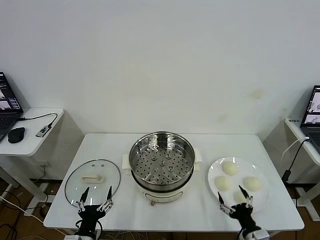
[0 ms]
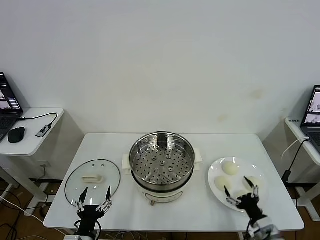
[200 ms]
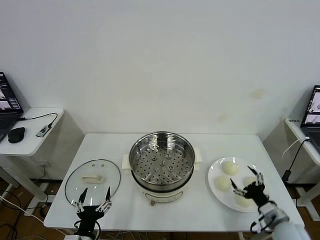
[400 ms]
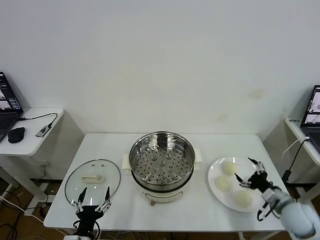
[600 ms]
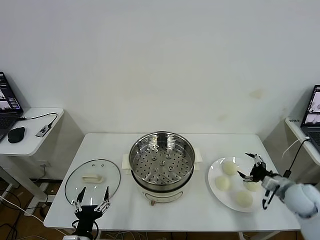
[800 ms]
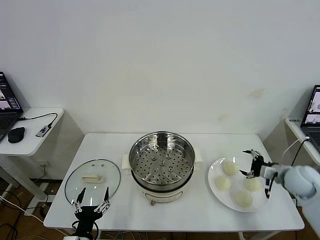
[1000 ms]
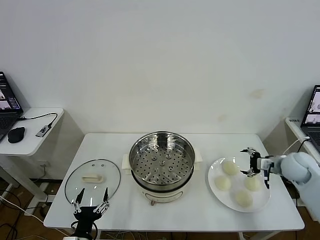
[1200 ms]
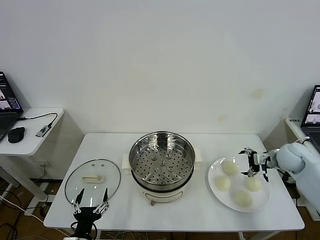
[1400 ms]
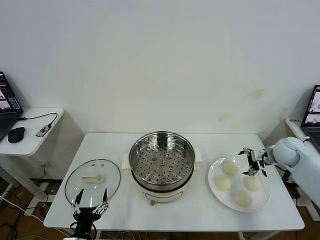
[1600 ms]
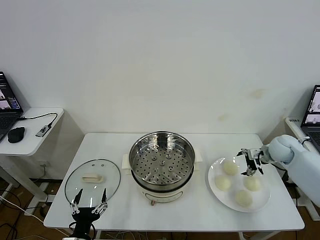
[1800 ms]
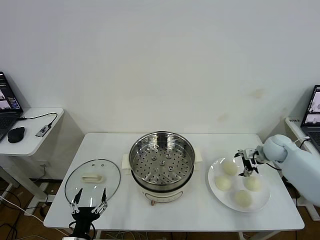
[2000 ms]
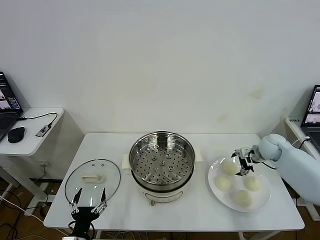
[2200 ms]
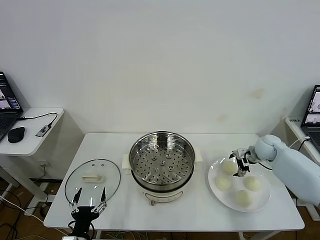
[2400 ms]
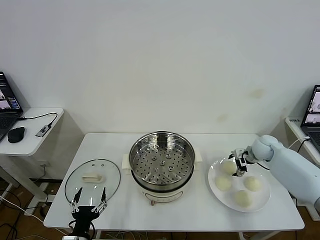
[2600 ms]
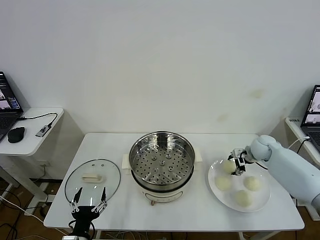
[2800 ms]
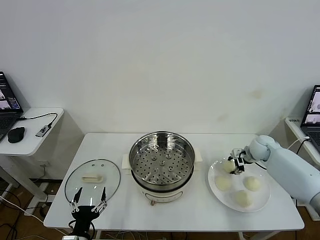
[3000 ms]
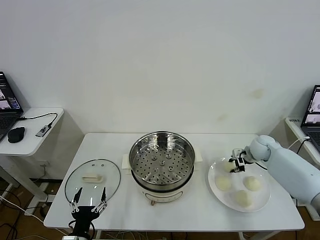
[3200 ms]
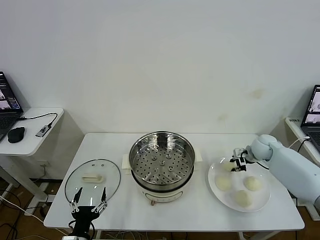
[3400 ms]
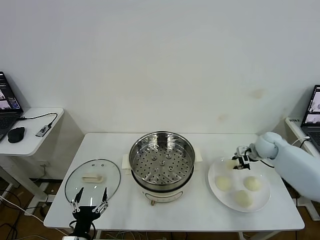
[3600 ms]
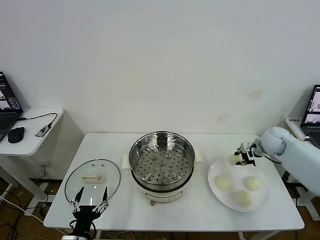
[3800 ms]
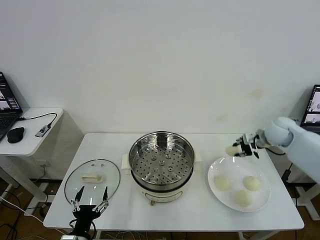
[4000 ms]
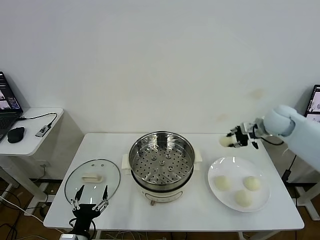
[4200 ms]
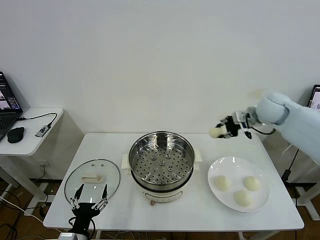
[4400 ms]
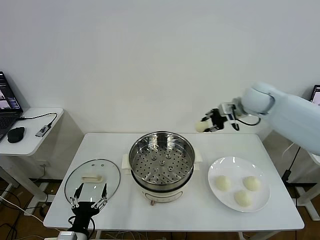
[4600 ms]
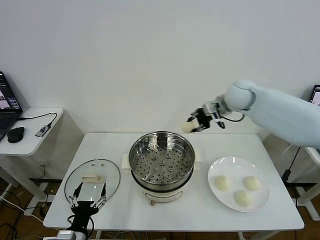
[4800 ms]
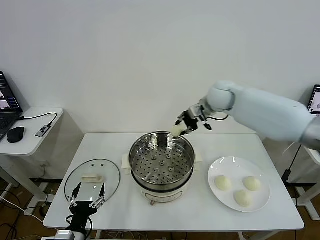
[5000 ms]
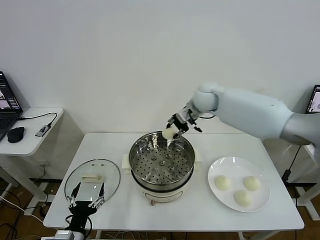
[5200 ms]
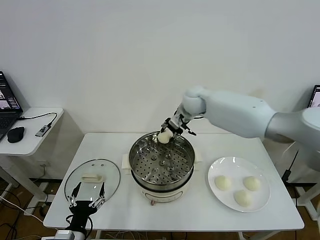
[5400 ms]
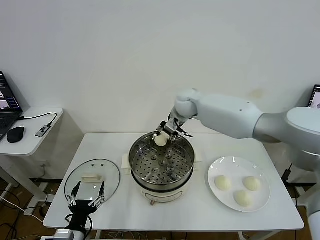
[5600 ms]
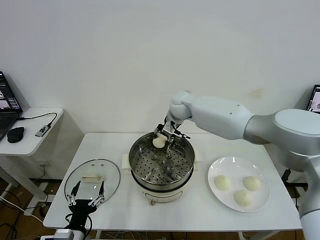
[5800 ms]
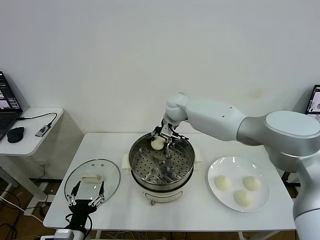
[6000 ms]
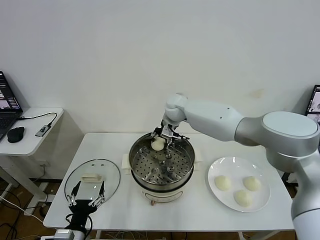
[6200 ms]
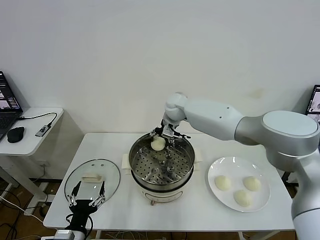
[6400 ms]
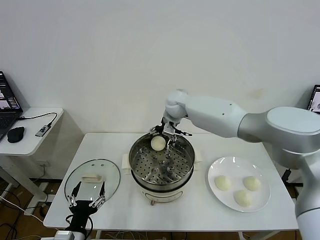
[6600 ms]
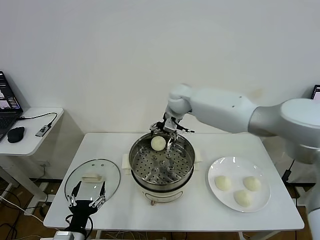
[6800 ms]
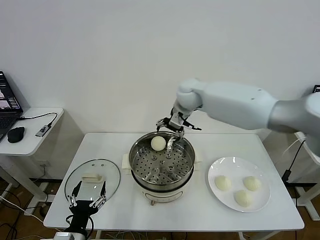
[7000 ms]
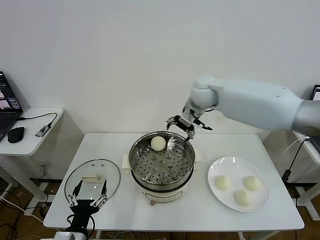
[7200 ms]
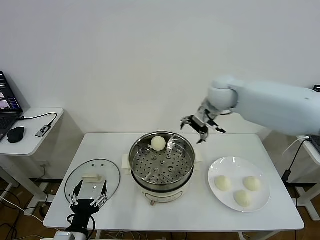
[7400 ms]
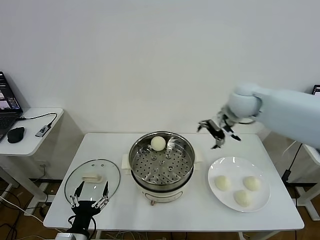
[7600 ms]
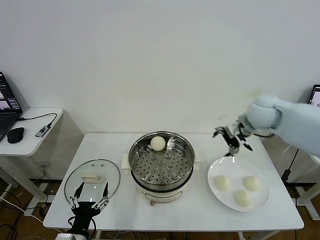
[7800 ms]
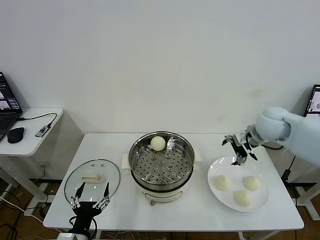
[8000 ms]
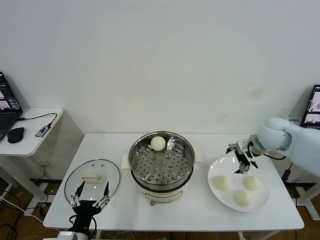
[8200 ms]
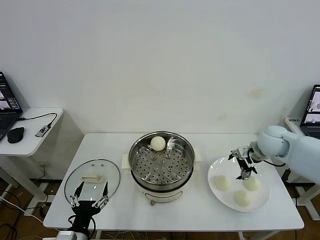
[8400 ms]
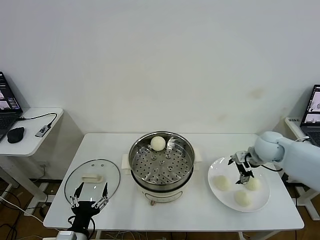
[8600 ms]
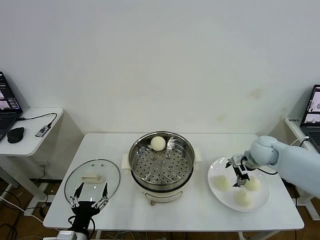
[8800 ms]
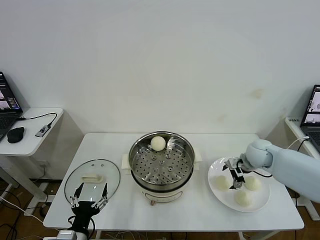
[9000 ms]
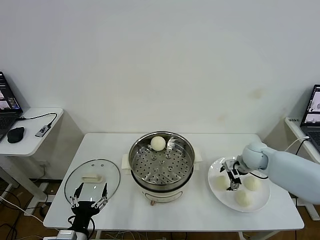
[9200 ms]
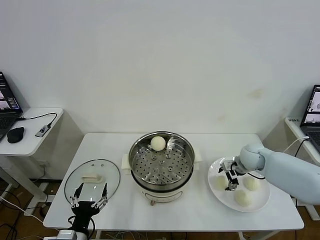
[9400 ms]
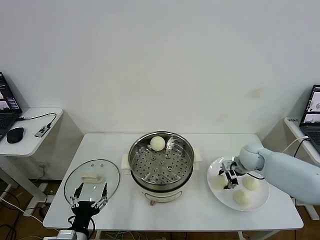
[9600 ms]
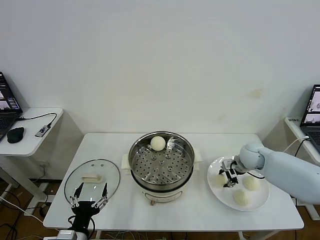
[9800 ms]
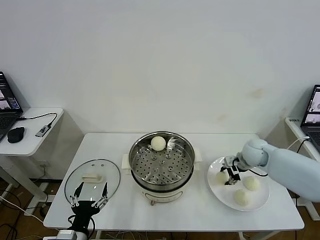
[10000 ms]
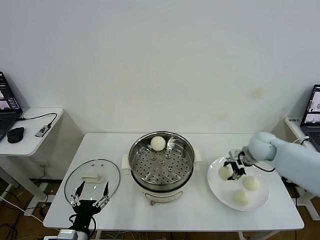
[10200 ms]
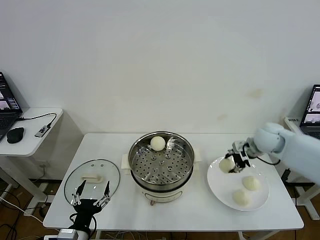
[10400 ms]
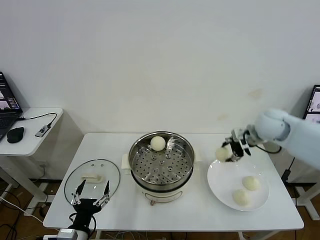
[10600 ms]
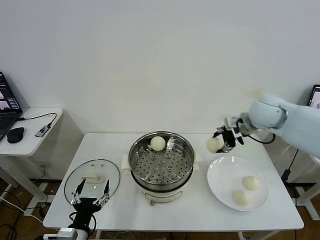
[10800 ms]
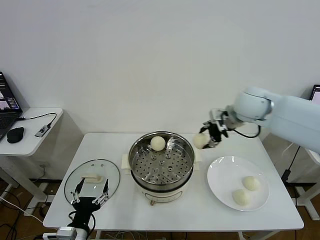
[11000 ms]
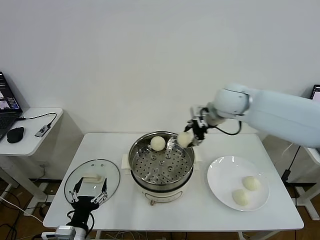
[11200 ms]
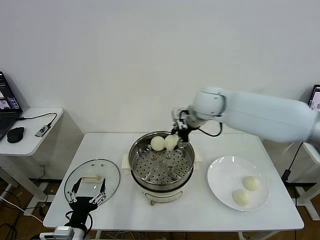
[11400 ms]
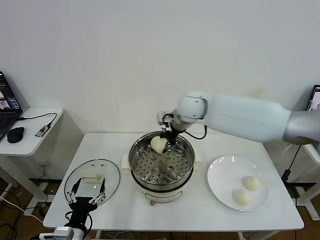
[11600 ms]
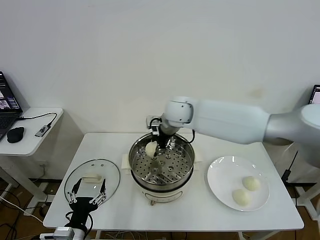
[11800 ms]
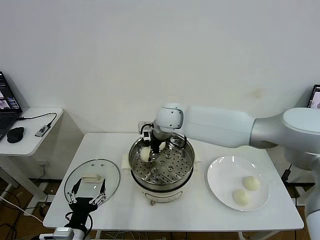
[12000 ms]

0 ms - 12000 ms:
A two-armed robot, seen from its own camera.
Task of the whole recording: take steamed baozi put them in steamer then cover it.
Step, 0 ms - 3000 ms: Grasp the baozi in the plate with right gripper.
Step, 3200 ms - 6600 ms: Place the baozi on the steamer with right gripper.
Step, 6800 ms - 9800 ms: Grasp the baozi in the plate with right gripper.
1600 ms - 3000 ms: The right gripper ends up approximately 10 cm from where it was, and closes.
3000 ms - 4400 ms: The right gripper travels upward by about 20 cm.
4400 ms - 6000 ms: The right gripper is displaced to the left by approximately 25 cm, and opens its fingers.
6000 ms - 7600 ms: The right gripper is displaced to the right and backward by some 25 cm, and opens its fingers.
7600 ms - 9000 ms: The right gripper is displaced downward by roughly 20 cm.
9000 ms - 10400 ms: The right gripper heads upward, covering some 10 cm, and closes.
10400 ms - 12000 ms: The right gripper heads to the left, covering approximately 35 cm.

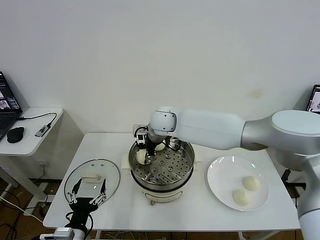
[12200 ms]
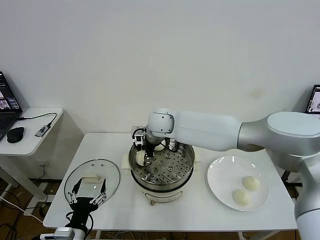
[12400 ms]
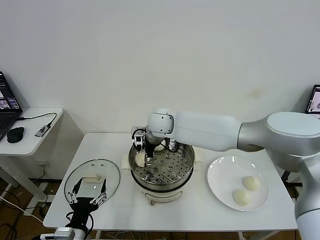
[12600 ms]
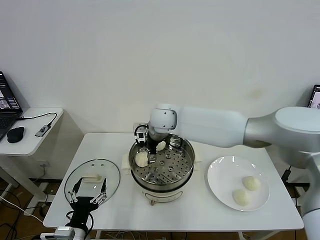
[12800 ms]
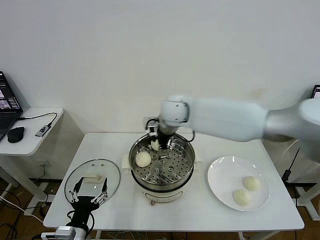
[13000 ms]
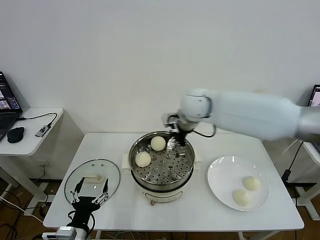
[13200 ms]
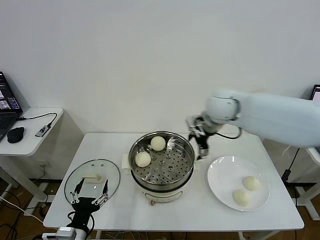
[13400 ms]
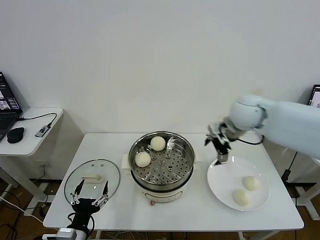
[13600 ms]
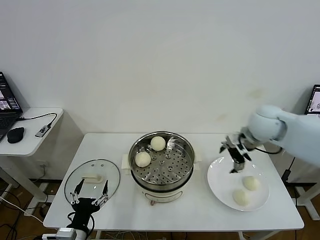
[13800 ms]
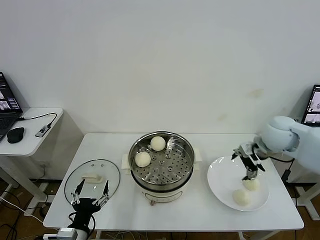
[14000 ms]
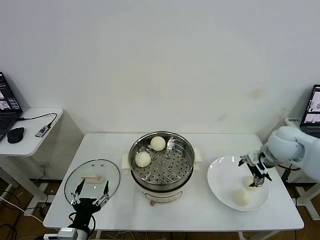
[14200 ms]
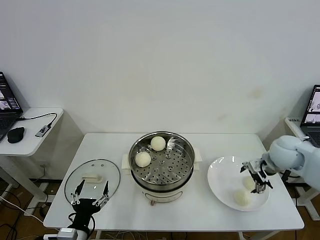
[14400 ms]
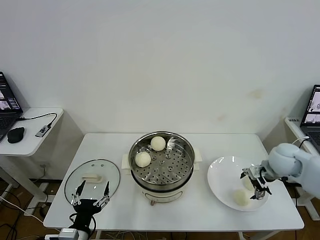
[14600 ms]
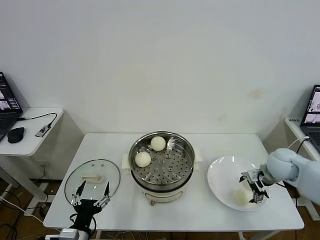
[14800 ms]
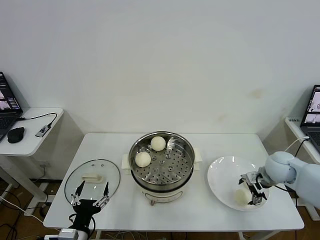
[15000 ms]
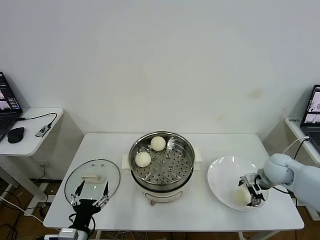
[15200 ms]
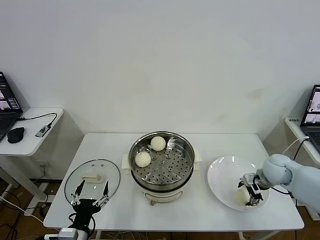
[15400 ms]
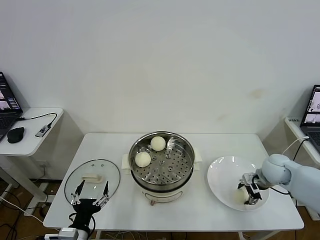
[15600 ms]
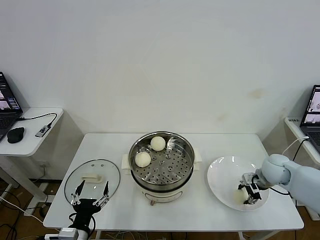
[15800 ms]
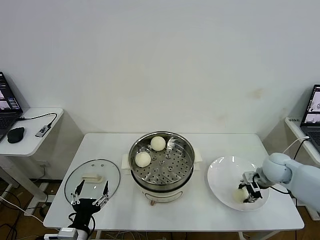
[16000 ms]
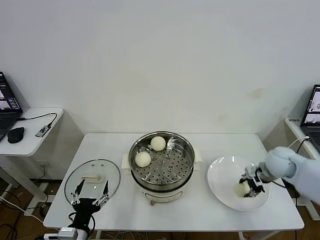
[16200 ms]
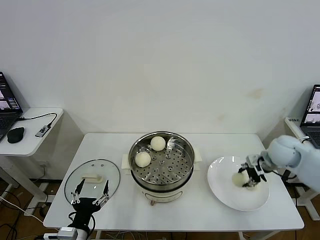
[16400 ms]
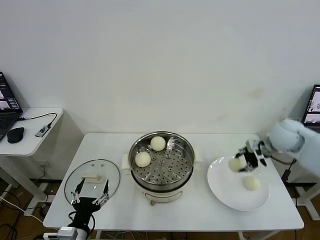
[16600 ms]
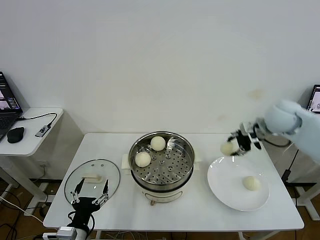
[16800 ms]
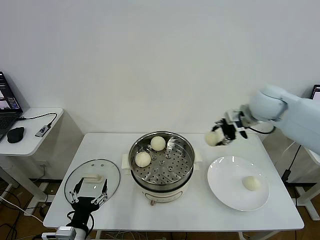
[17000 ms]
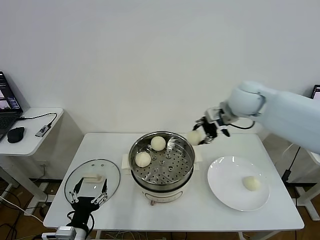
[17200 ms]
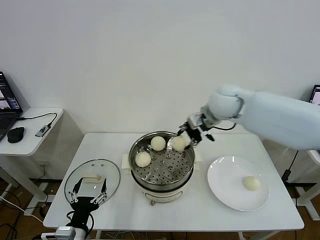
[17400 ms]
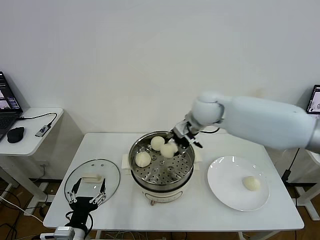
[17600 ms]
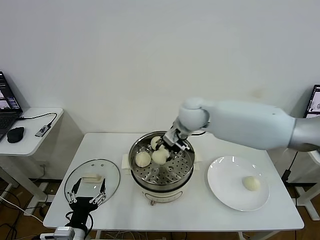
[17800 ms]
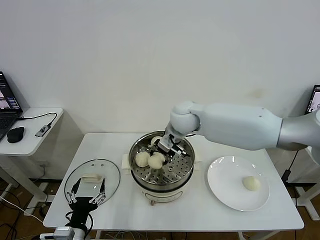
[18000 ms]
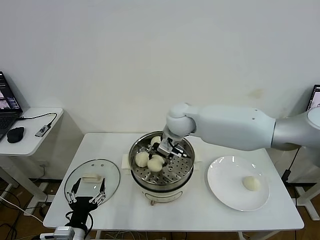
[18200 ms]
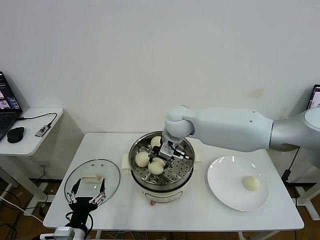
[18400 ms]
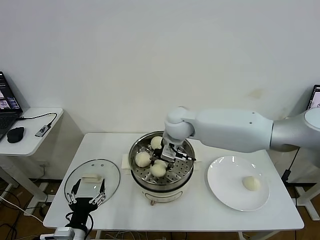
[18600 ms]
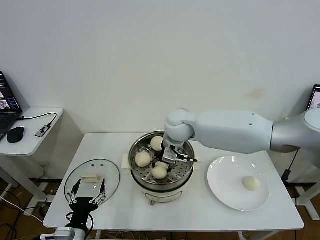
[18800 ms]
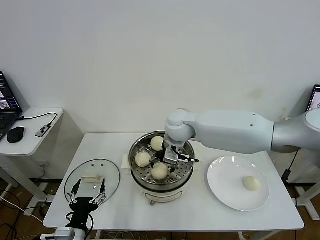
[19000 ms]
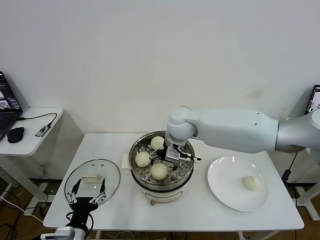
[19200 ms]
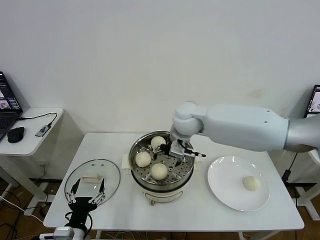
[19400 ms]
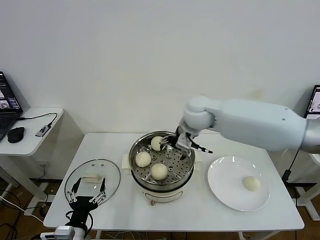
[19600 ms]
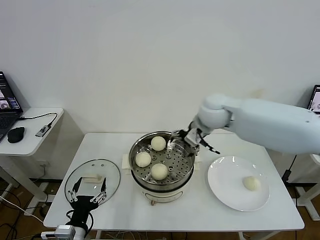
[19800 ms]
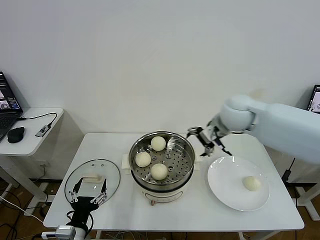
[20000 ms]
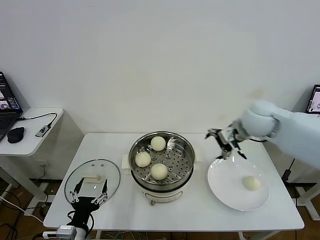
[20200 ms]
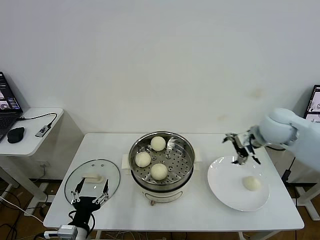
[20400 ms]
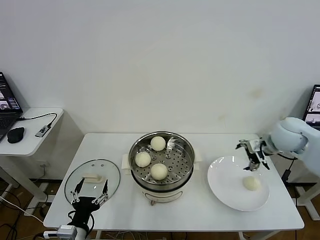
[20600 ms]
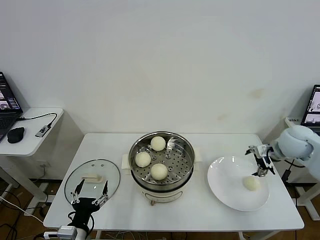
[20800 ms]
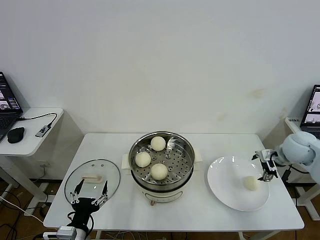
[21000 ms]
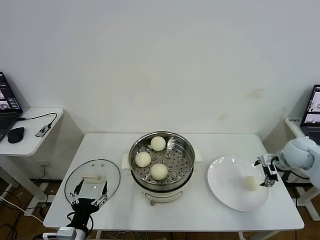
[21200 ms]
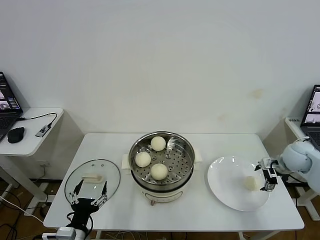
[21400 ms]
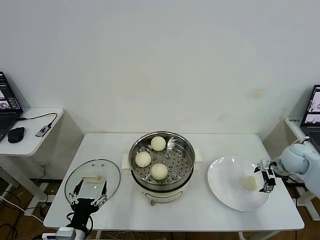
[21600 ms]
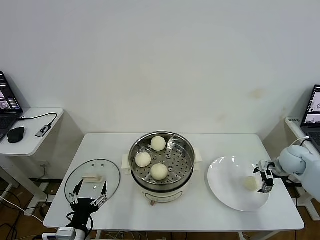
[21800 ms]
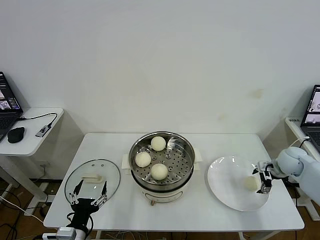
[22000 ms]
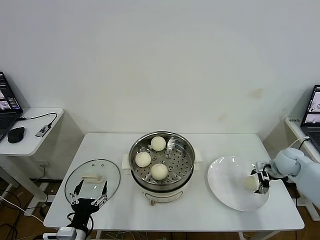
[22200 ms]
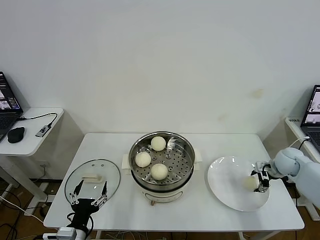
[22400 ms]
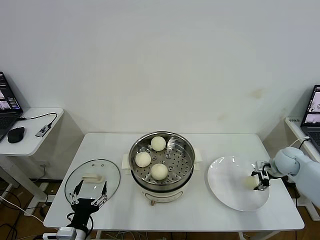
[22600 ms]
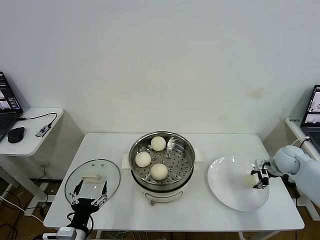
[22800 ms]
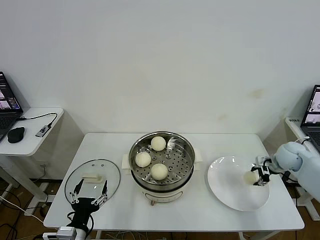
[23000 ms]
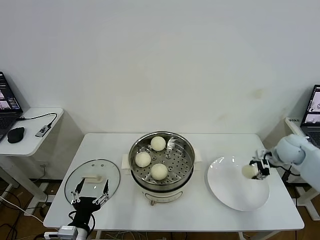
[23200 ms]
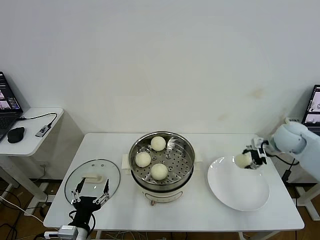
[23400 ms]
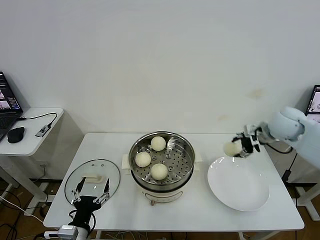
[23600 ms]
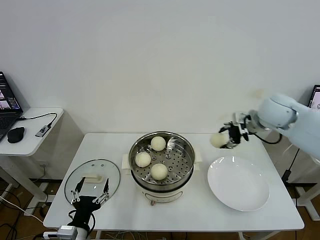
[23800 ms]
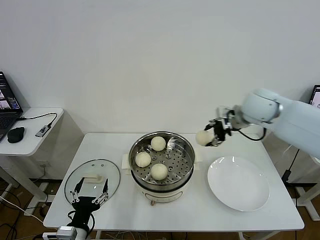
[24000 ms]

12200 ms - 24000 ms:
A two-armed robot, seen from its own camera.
Task of the whole recording: take steamed baozi put them in steamer then cover it.
Step, 12800 ms - 15600 ms: Grasp the baozi in the plate with right gripper.
Step, 15800 ms - 19200 ms: Place the baozi on the steamer with right gripper.
Step, 19400 ms - 22600 ms: Grasp the baozi in the plate with right gripper.
12200 ms - 13600 ms: The right gripper is displaced to the right by some 25 cm, and opens.
13600 ms - 15200 ms: The right gripper shifts some 25 cm downward and to the right.
15200 ms - 16600 ms: The right gripper travels upward and forward by some 15 cm, and closes its fingers.
16600 ms - 18200 ms: The right gripper heads to the left, covering roughly 30 cm.
18200 ms - 19600 ms: The right gripper is displaced to the right by approximately 5 cm, and opens its fingers.
19600 ms - 21000 ms: The right gripper moves to the right, roughly 30 cm.
21000 ms - 22600 ms: The right gripper shifts about 10 cm downward, and closes its fingers.
22600 ms - 24000 ms: The right gripper is displaced upward and to the left by approximately 30 cm.
